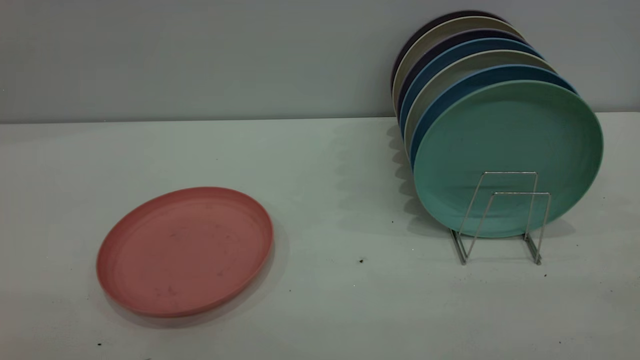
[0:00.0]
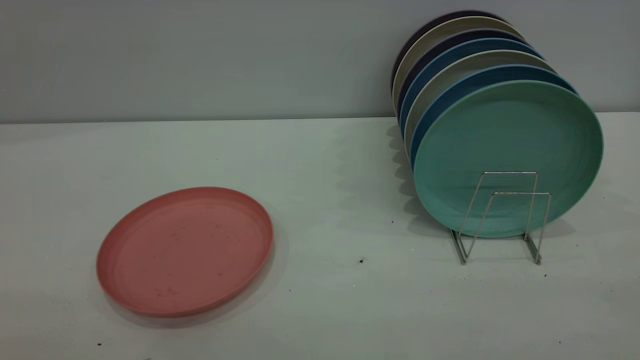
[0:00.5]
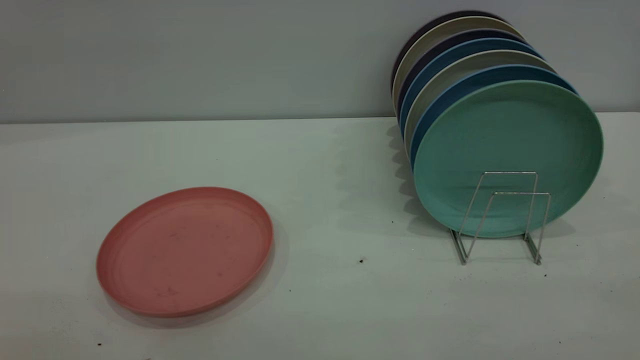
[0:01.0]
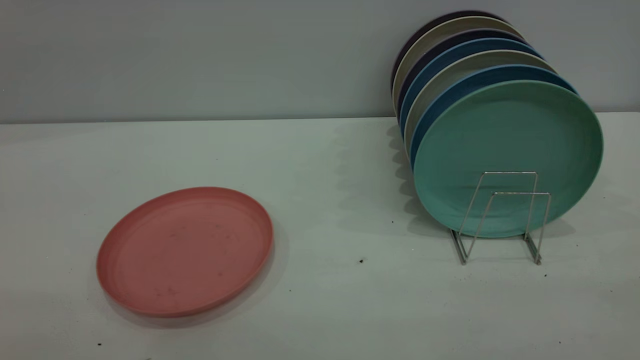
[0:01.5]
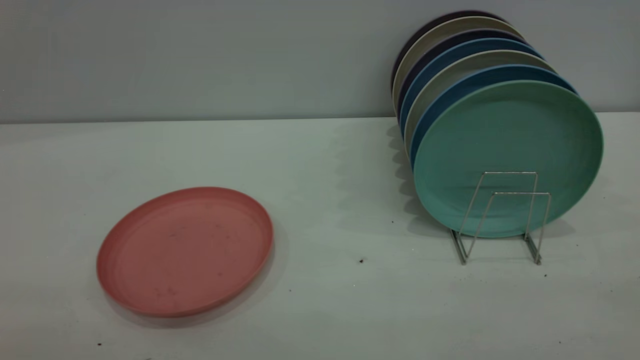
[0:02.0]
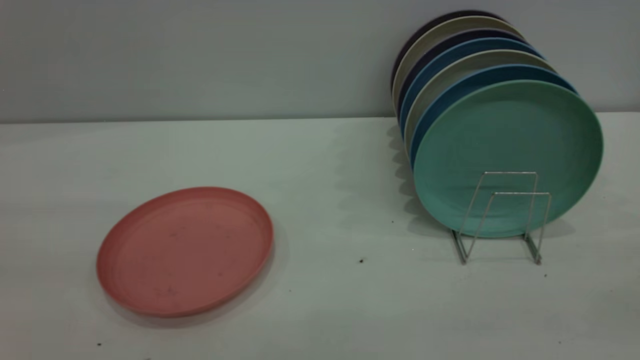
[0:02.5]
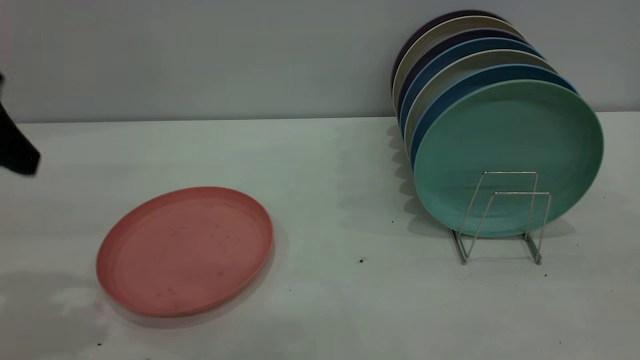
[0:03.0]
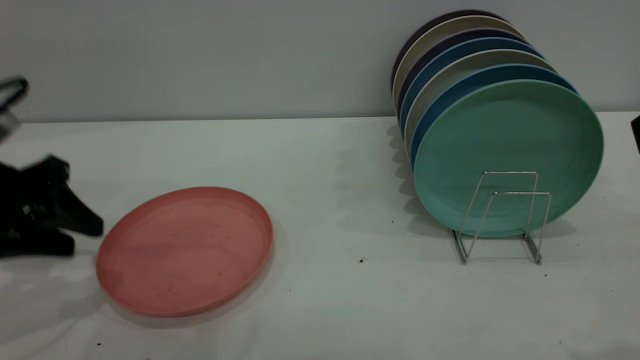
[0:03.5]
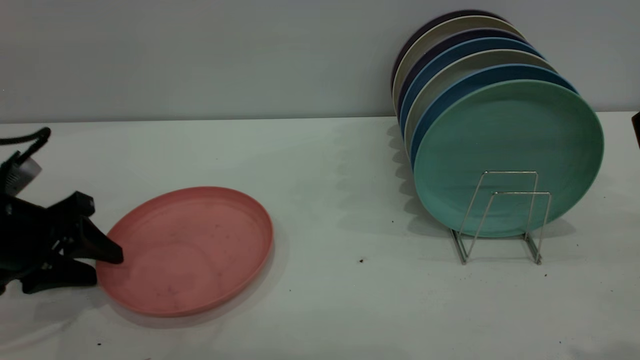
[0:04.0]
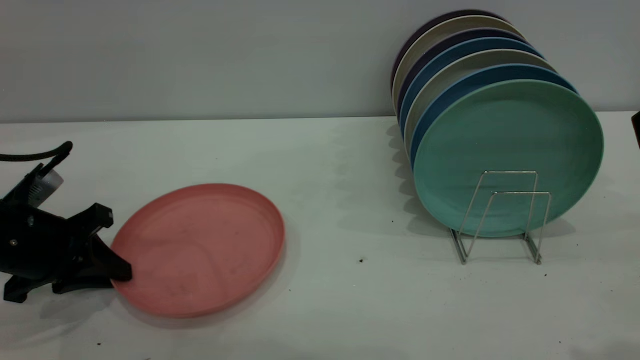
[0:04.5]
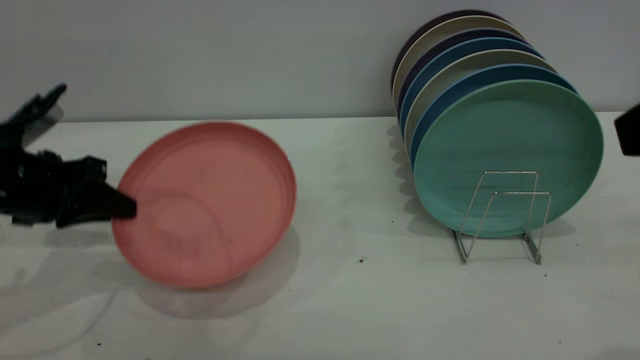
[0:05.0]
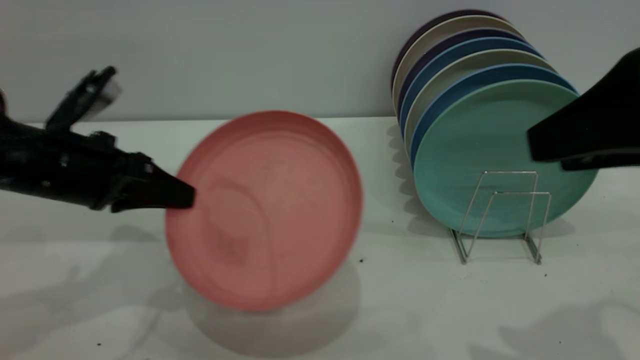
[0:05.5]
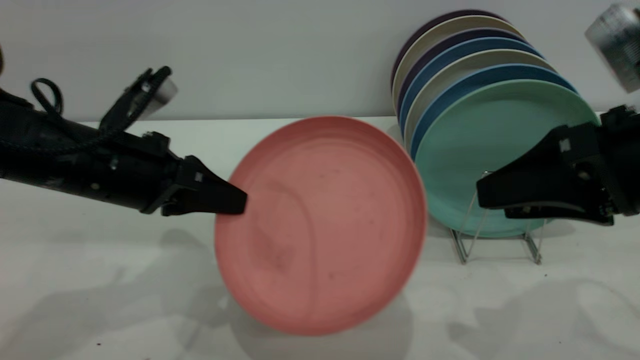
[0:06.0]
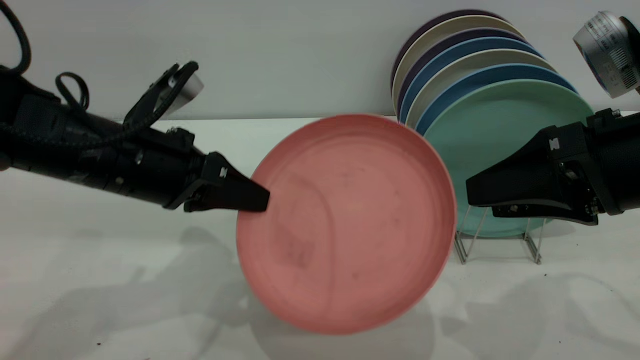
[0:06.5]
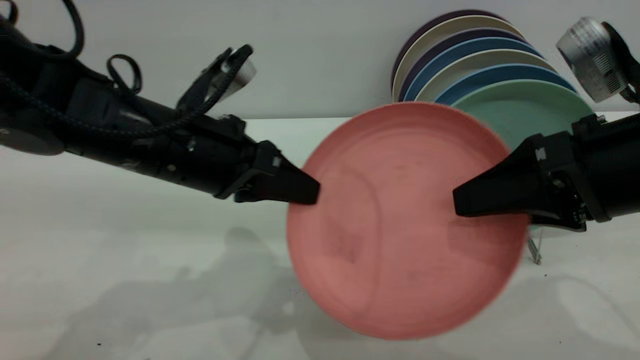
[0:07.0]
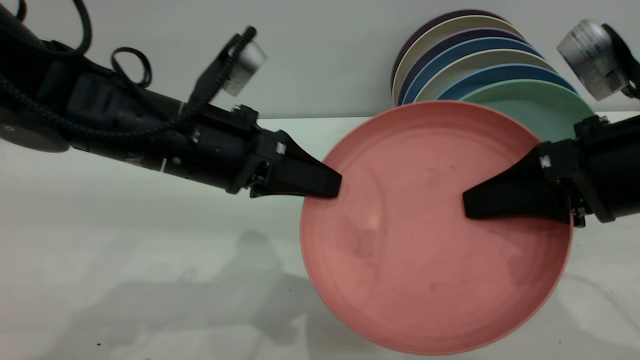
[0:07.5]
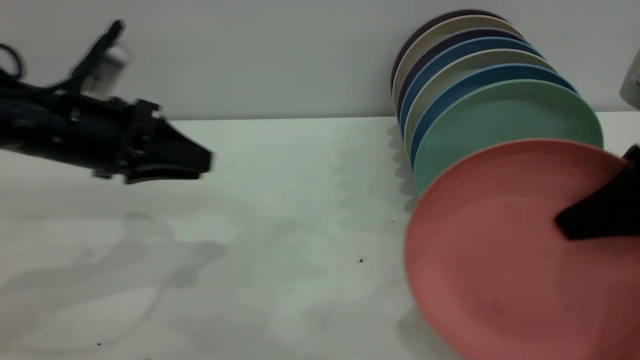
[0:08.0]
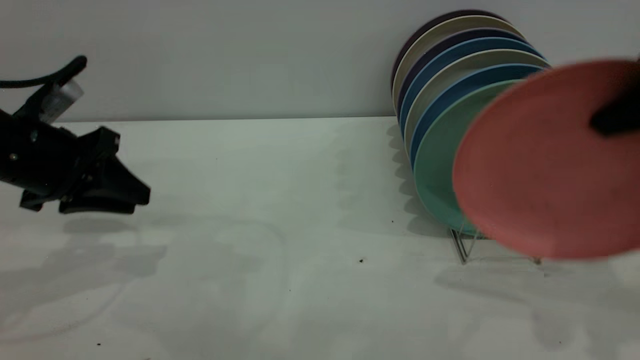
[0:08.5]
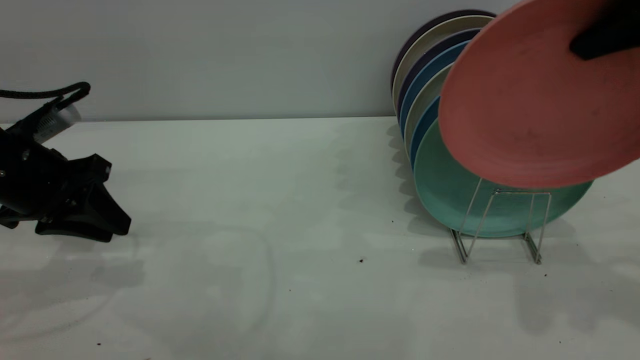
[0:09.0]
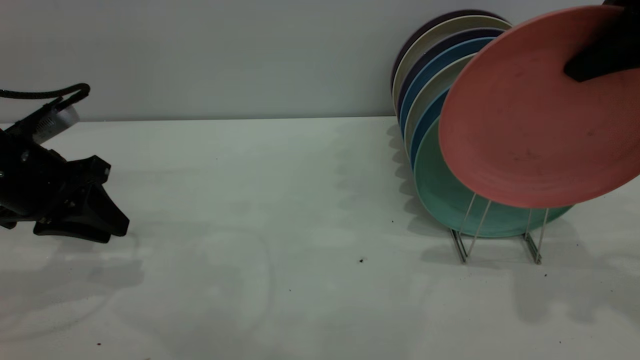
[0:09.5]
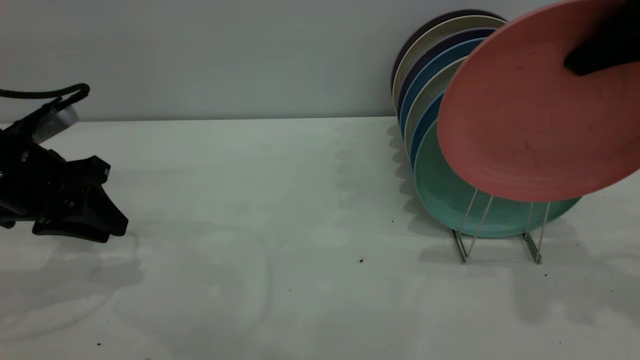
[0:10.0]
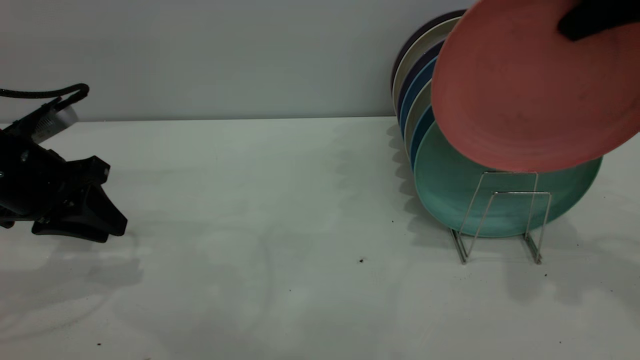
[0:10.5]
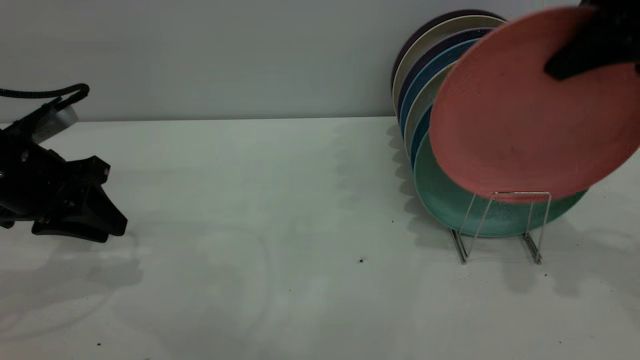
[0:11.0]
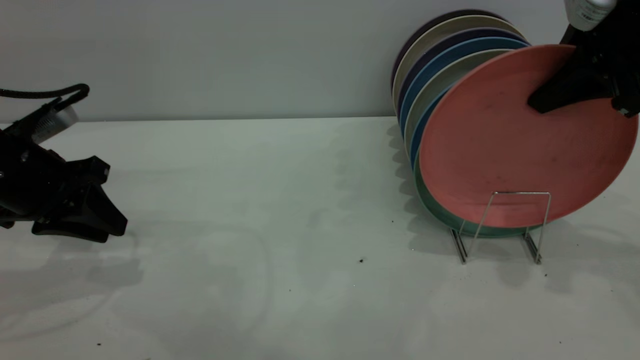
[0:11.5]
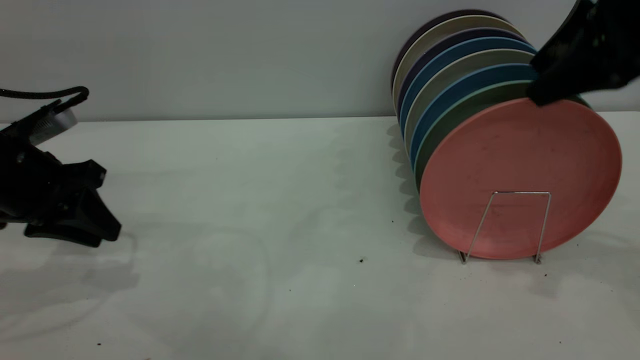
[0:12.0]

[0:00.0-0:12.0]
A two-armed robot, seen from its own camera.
Task of the whole recording: put the plate on the plate rack.
Step, 0:00.0 to 0:04.5: Pick up the plate with the left gripper.
Step, 0:05.0 to 0:07.5: Pass the plate from the left gripper to the right gripper.
0:00.0 to 0:02.0: Neither gripper changes place.
0:02.0 to 0:04.0: The left gripper is displaced forward and downward by some 40 cm.
0:04.0 to 0:06.0: The right gripper heads downward and forward, covering approximately 15 cm, while the left gripper heads to the right and upward, covering some 15 cm, and closes its fingers.
0:06.0 to 0:08.0: The right gripper closes up, while the left gripper changes place by roughly 5 cm, and opens up.
0:08.0 to 0:10.0: The right gripper shifts about 15 cm upward and forward; the left gripper shifts some 5 cm to the left.
0:10.0 to 0:12.0: The right gripper opens up.

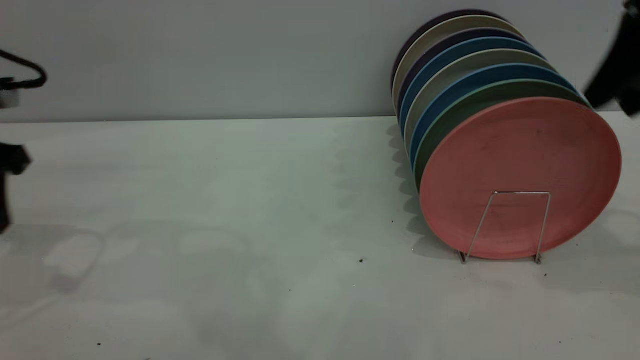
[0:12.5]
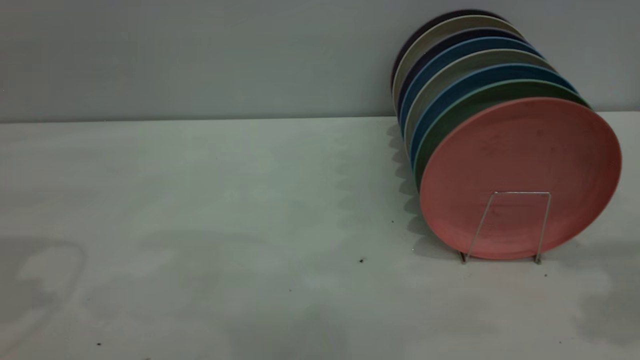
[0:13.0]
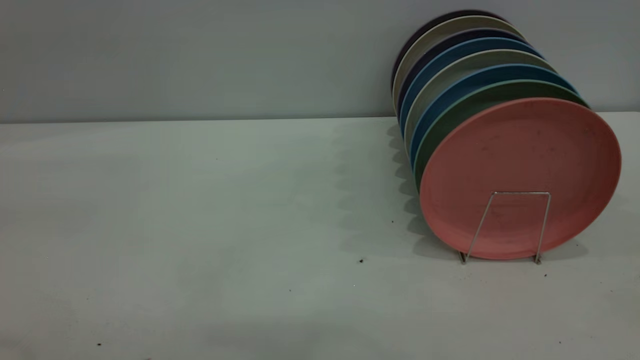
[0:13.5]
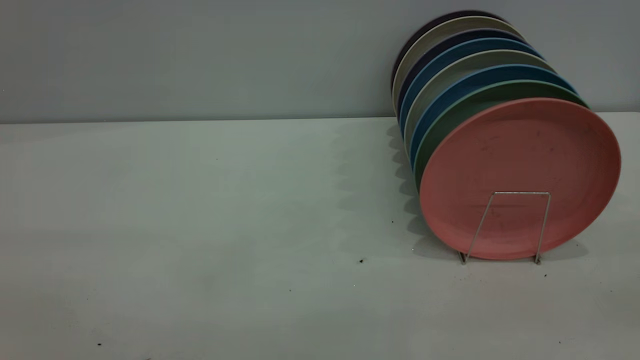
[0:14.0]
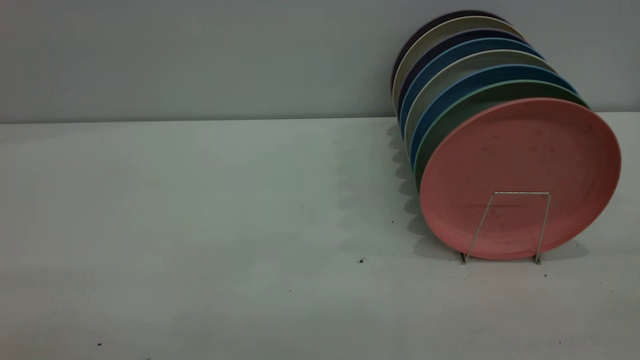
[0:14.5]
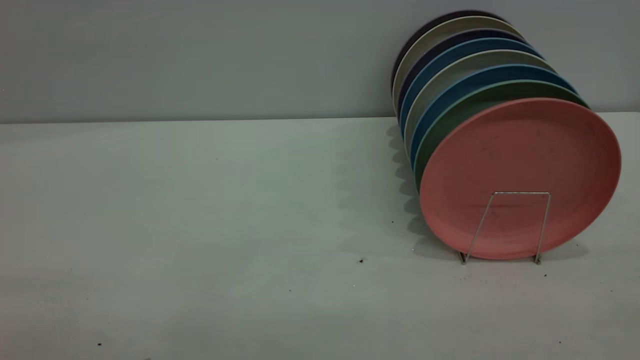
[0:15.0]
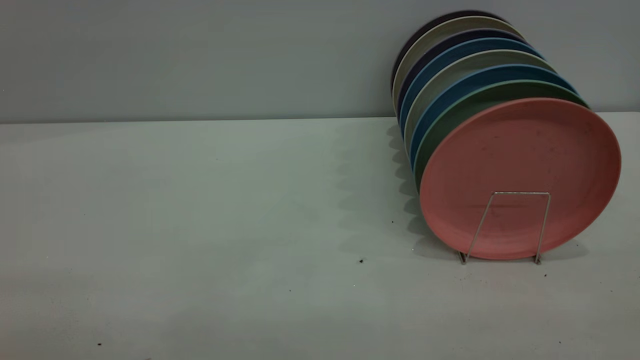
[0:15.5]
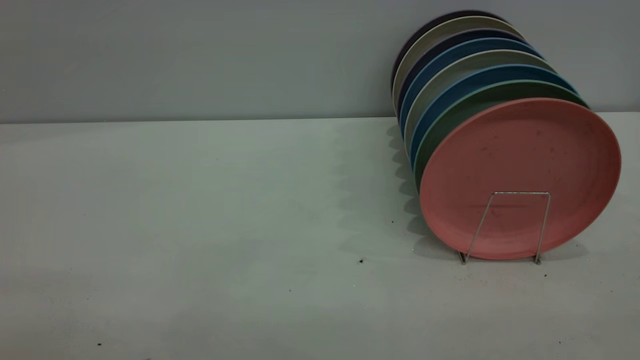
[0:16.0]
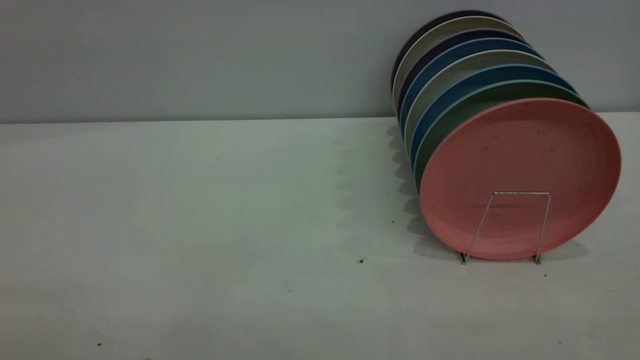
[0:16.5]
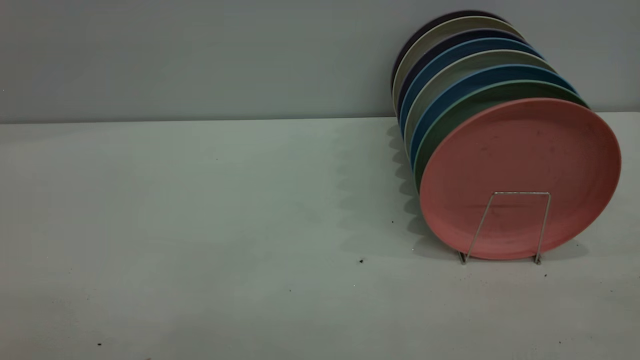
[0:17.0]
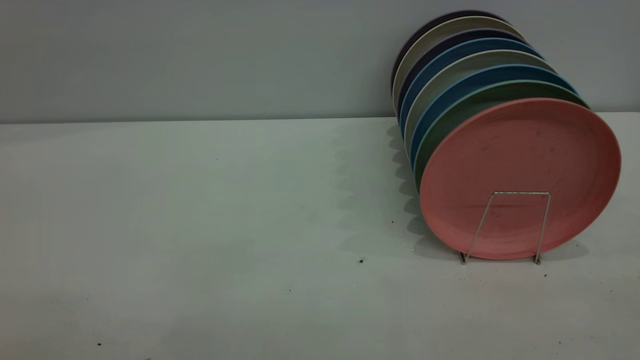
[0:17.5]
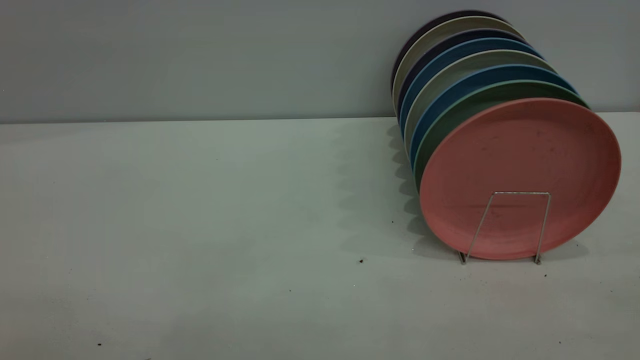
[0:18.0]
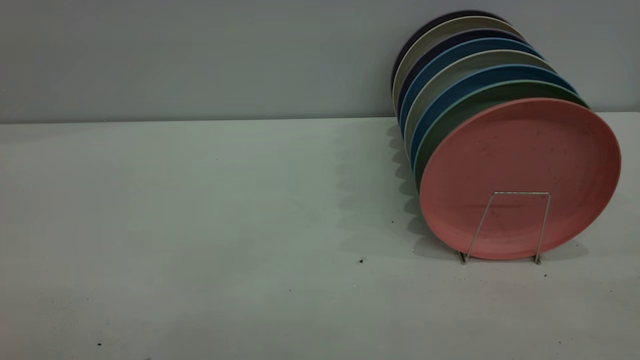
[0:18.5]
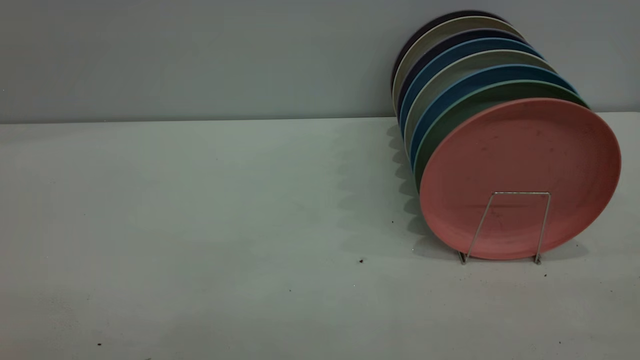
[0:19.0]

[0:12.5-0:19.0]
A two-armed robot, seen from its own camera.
Task of the whole recording: put the plate on the plate rack.
0:12.5 to 0:14.5: The left gripper shifts roughly 35 cm backward and upward, and opens its fingers. The right gripper is displaced backward by approximately 30 cm.
0:17.0 to 0:19.0: Both grippers stay about where they are.
